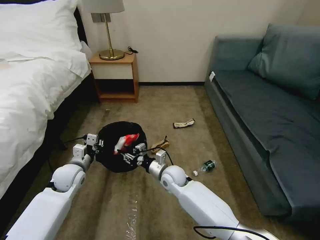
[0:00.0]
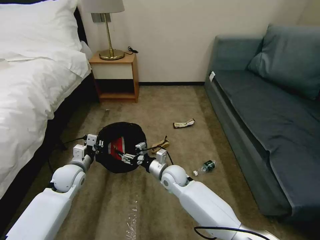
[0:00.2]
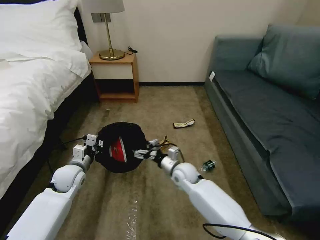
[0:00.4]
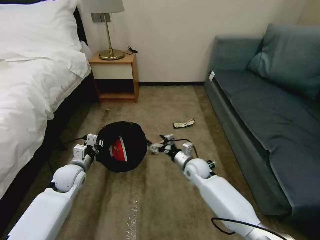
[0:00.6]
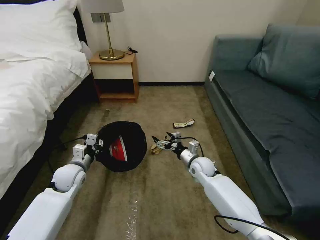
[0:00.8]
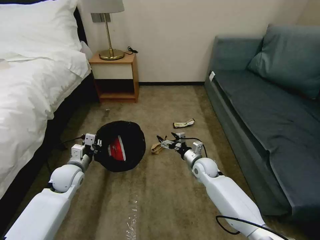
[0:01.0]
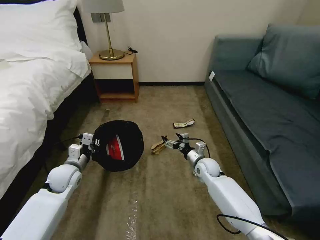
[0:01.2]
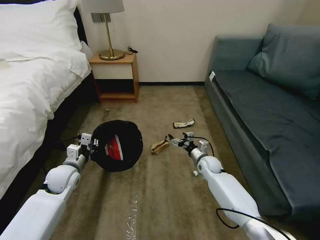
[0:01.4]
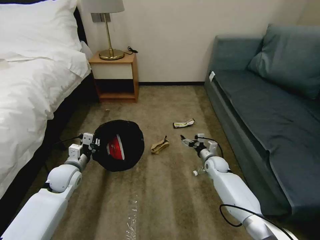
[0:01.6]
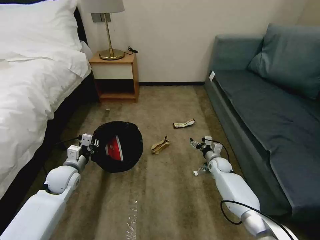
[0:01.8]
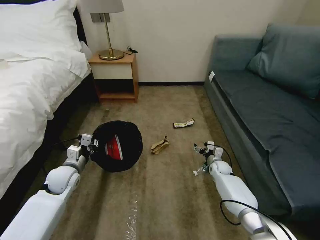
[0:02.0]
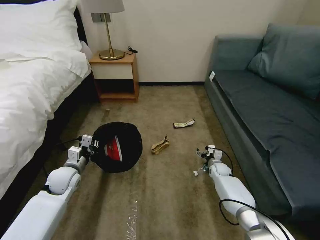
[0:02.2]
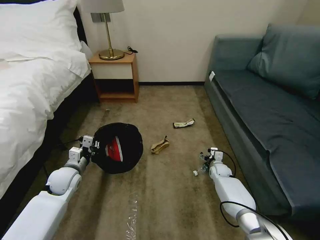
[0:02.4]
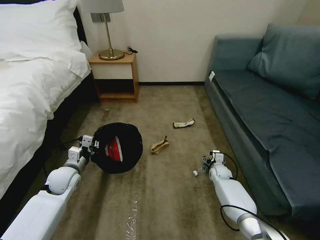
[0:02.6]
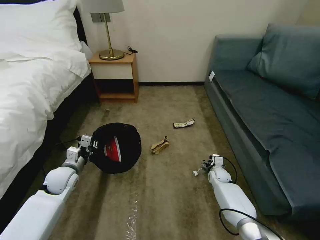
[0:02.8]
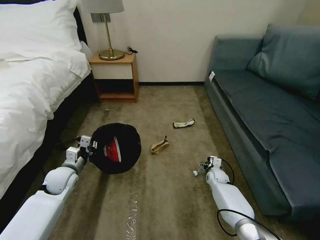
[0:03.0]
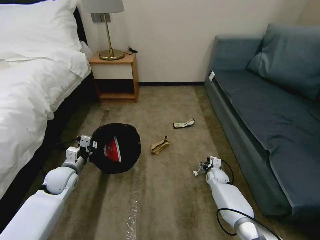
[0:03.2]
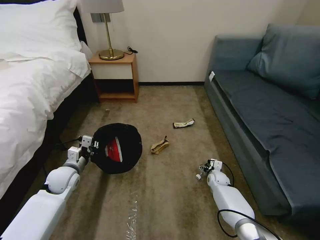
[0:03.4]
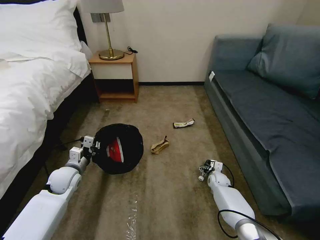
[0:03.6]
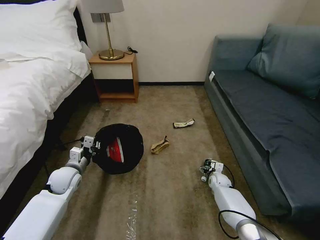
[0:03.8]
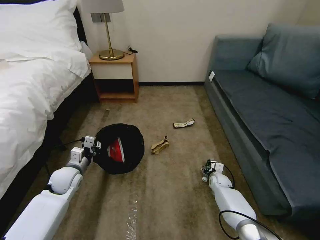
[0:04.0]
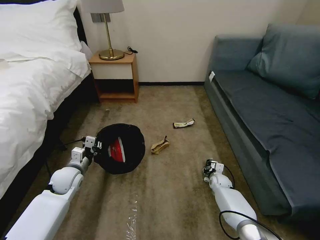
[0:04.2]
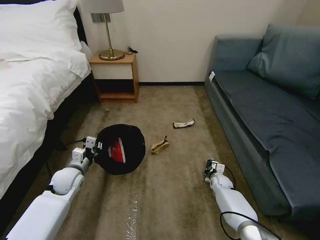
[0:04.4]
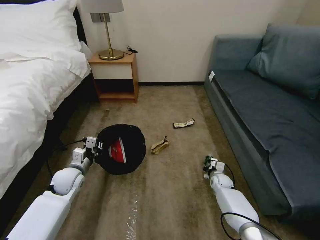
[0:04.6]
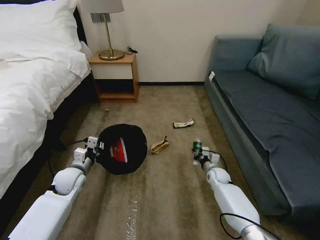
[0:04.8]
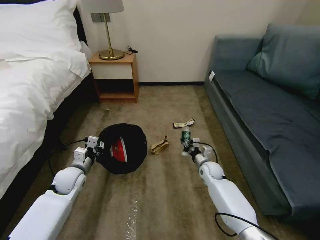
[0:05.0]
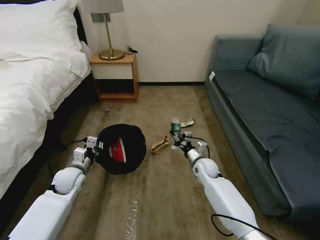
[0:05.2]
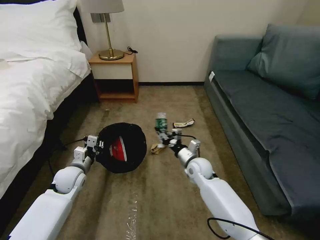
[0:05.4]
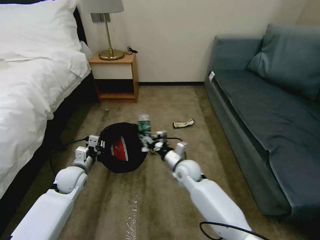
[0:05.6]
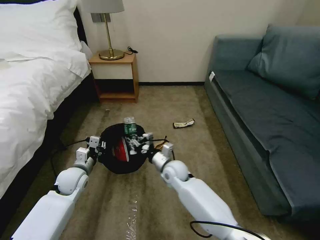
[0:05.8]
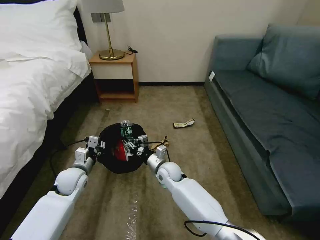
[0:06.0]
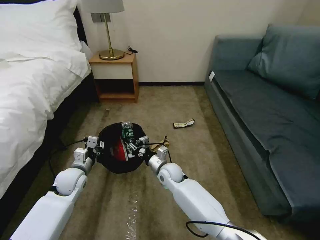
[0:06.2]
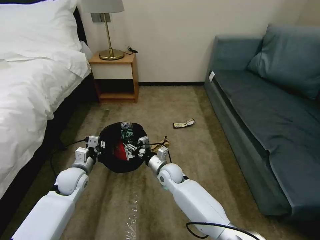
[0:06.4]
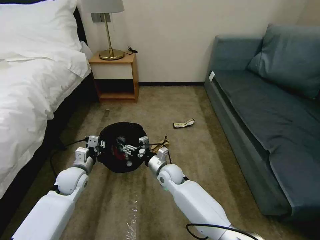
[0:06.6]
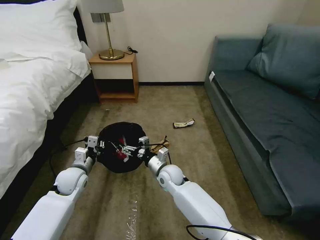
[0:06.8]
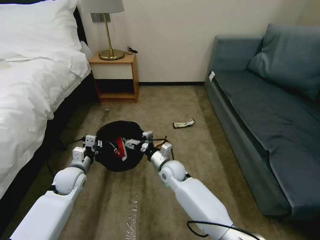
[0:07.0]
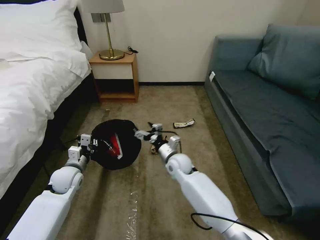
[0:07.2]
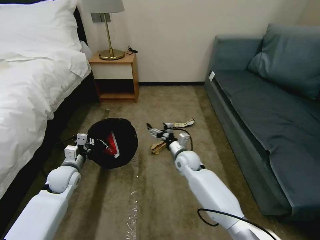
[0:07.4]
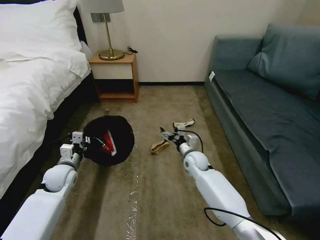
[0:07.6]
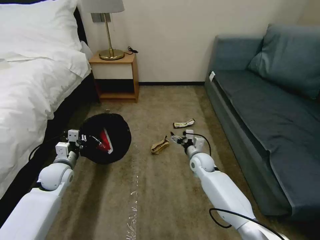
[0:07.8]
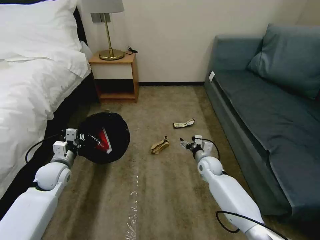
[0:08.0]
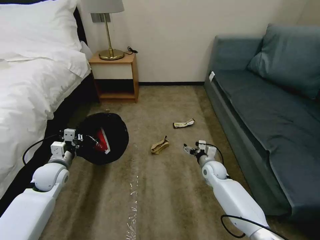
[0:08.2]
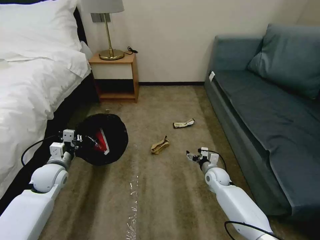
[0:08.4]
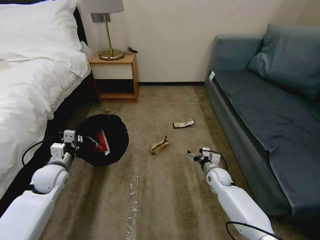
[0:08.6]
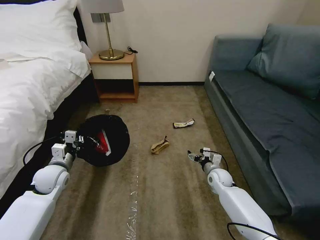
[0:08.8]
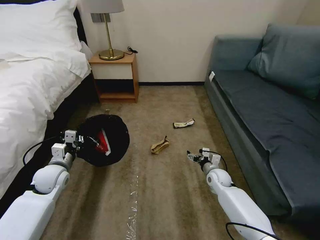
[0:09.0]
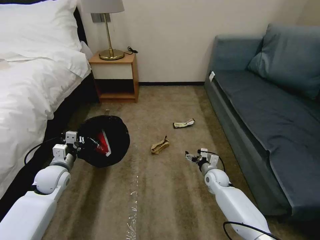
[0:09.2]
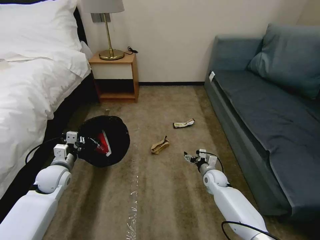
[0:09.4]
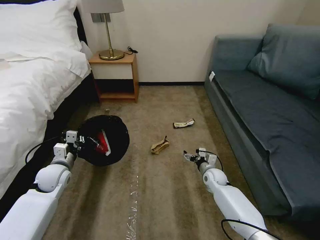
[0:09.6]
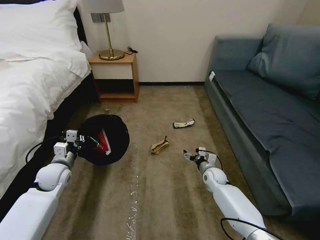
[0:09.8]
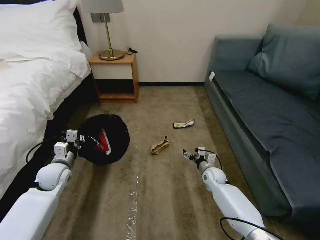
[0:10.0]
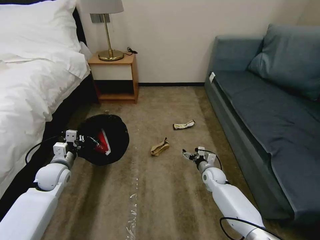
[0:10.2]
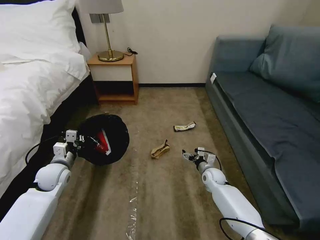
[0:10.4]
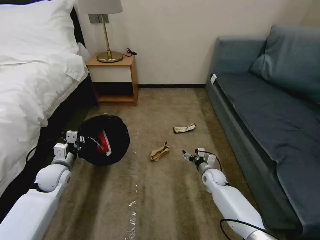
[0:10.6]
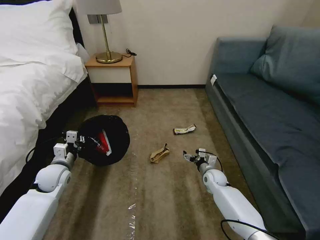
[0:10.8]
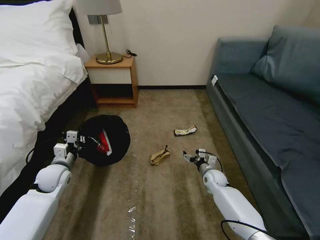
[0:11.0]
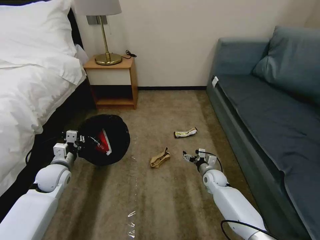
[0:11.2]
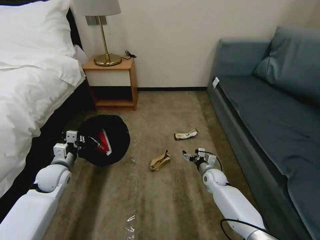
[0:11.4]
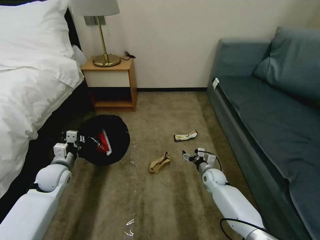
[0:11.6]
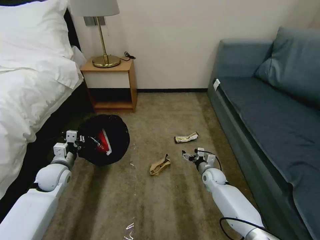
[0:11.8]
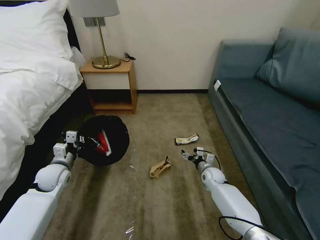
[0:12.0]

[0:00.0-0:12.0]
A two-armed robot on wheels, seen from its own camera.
Task of the whole recording: Pick up the trash bin, then pick up the garbage on the floor and place it into the trash bin.
0:00.0 to 0:01.6: The right gripper is displaced to the right by about 20 cm, and opens up.
0:01.6 to 0:03.0: The right gripper goes about 5 cm downward.
0:03.0 to 0:04.4: The right gripper closes.
0:04.4 to 0:06.0: The right gripper shifts some 30 cm to the left and upward.
0:06.0 to 0:07.6: The right gripper is displaced to the right by approximately 10 cm, and opens.
0:07.6 to 0:09.0: The right gripper travels to the right and downward by about 15 cm.
0:09.0 to 0:10.4: The grippers make only small movements.
0:10.4 to 0:12.0: Both grippers stay put.

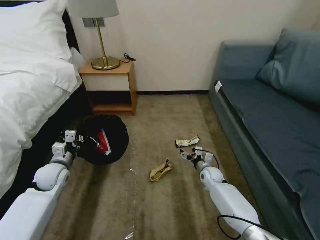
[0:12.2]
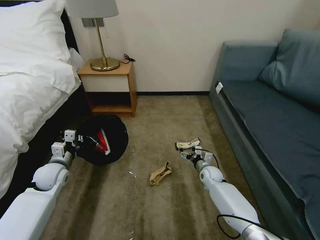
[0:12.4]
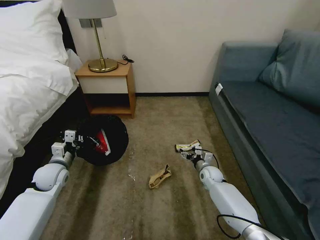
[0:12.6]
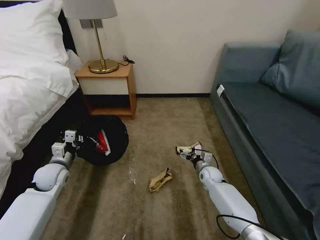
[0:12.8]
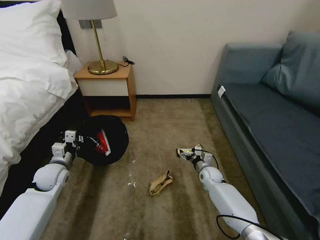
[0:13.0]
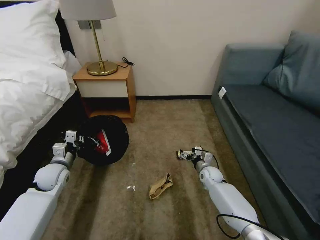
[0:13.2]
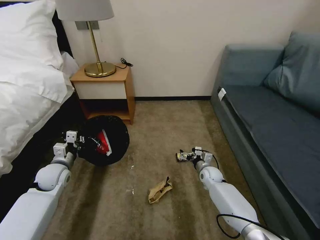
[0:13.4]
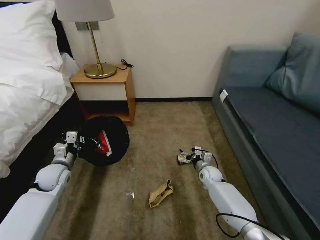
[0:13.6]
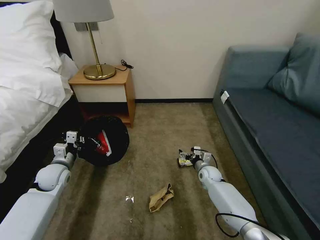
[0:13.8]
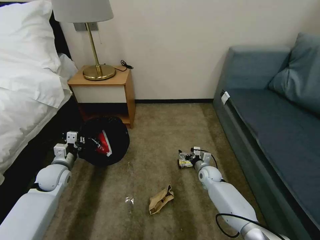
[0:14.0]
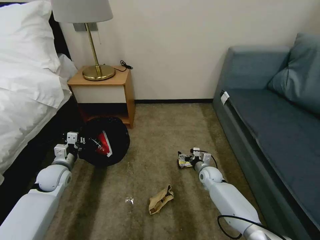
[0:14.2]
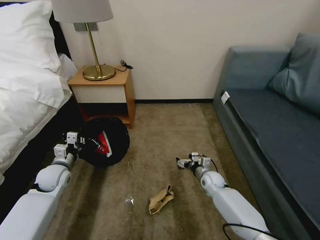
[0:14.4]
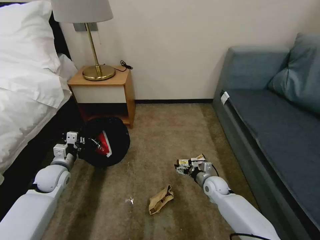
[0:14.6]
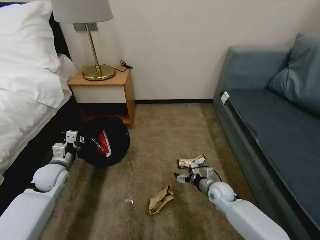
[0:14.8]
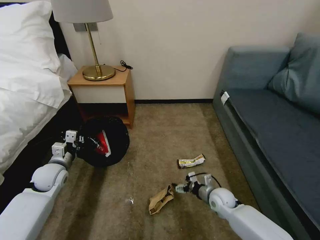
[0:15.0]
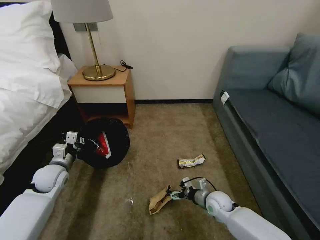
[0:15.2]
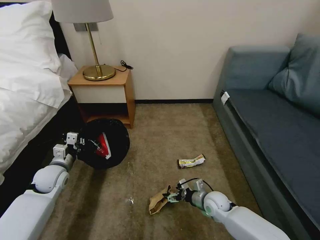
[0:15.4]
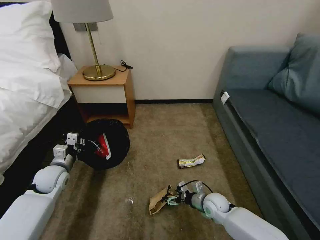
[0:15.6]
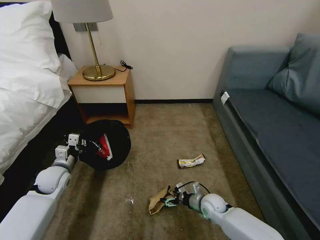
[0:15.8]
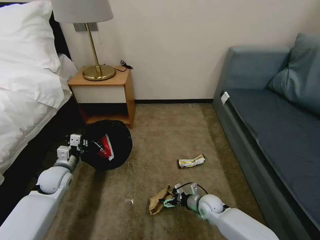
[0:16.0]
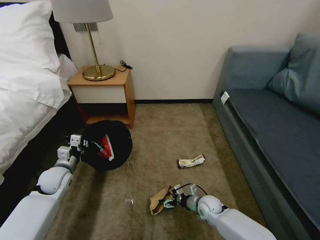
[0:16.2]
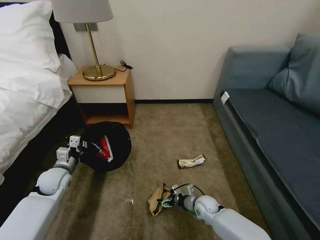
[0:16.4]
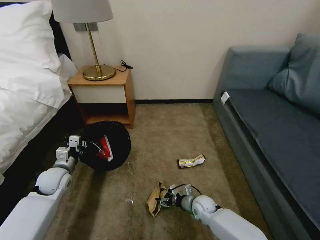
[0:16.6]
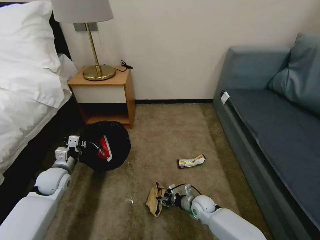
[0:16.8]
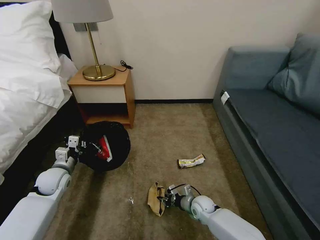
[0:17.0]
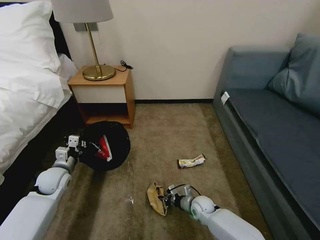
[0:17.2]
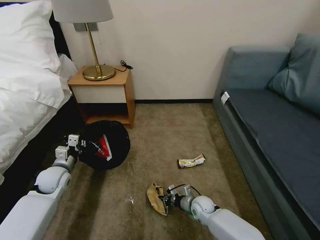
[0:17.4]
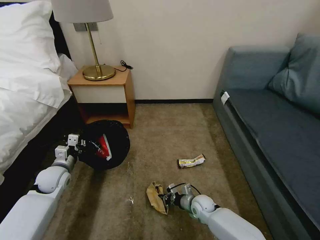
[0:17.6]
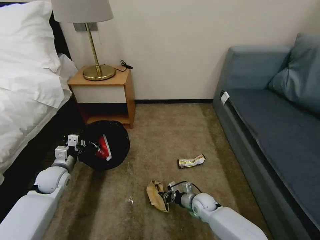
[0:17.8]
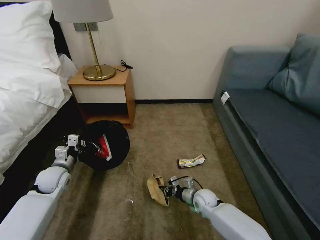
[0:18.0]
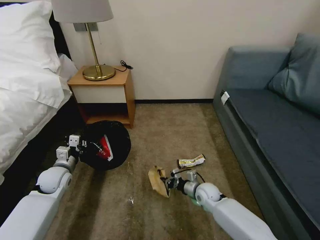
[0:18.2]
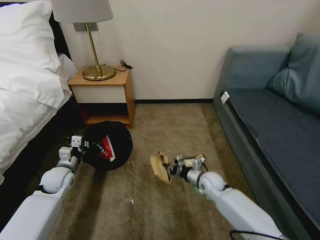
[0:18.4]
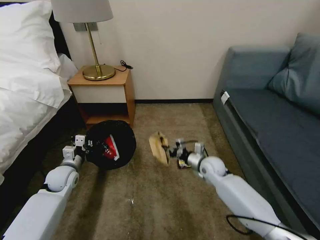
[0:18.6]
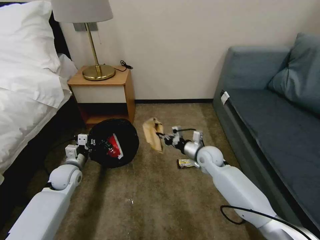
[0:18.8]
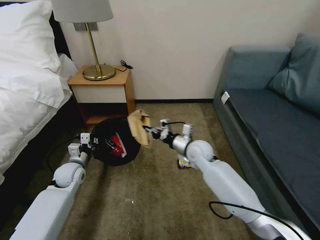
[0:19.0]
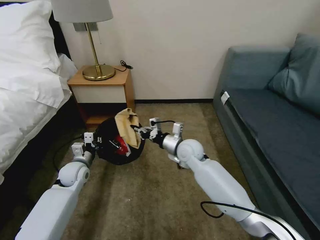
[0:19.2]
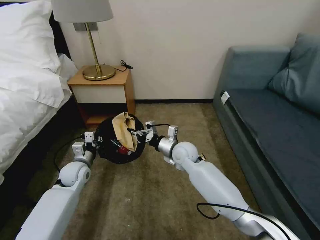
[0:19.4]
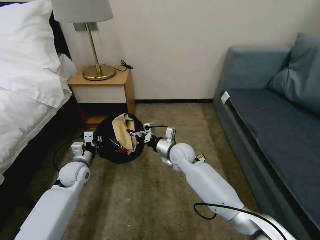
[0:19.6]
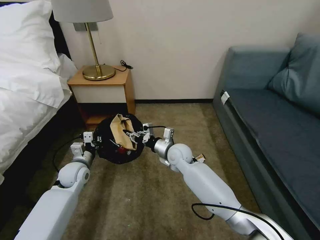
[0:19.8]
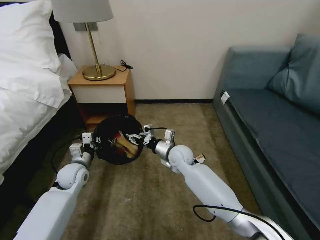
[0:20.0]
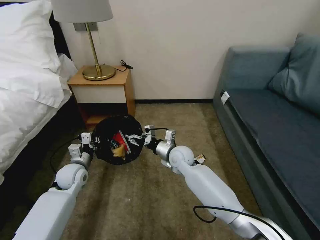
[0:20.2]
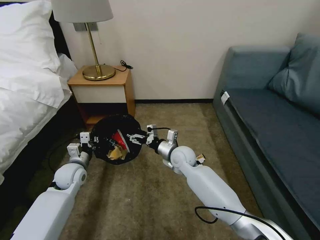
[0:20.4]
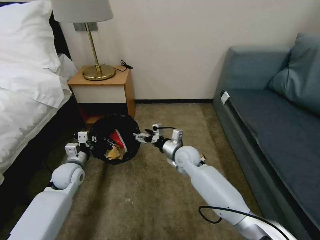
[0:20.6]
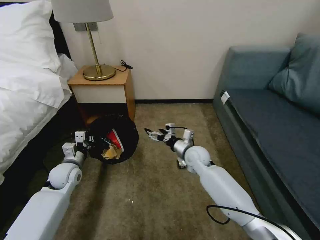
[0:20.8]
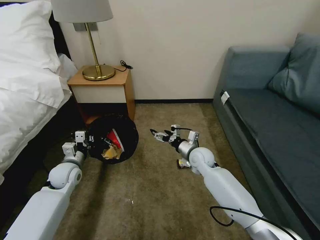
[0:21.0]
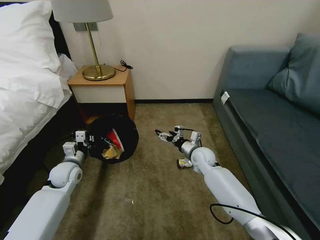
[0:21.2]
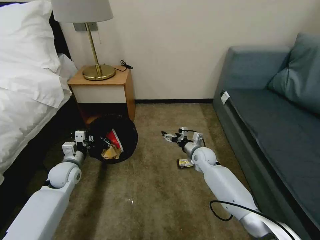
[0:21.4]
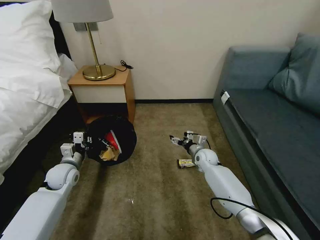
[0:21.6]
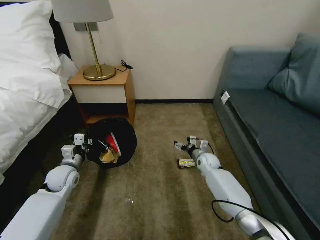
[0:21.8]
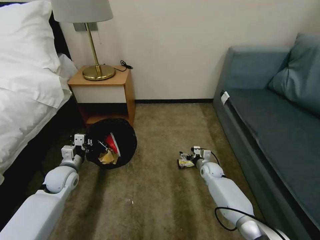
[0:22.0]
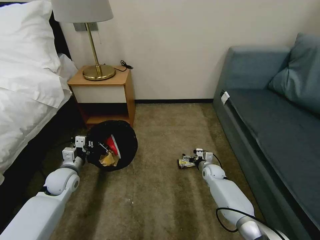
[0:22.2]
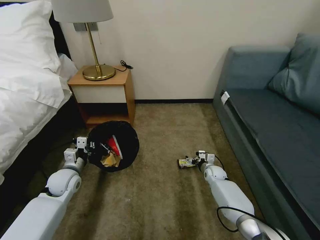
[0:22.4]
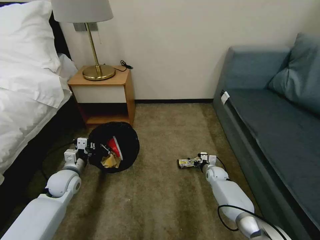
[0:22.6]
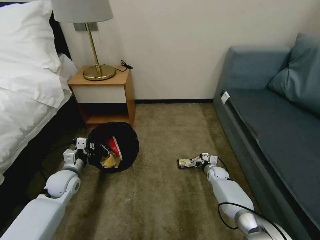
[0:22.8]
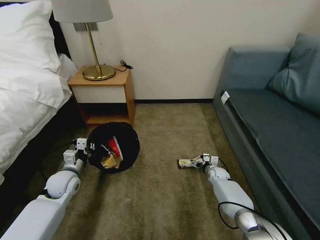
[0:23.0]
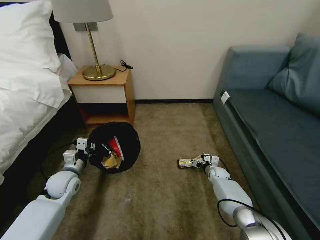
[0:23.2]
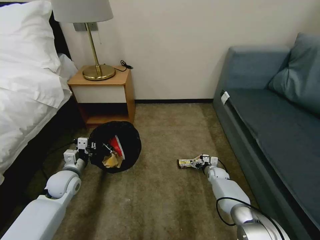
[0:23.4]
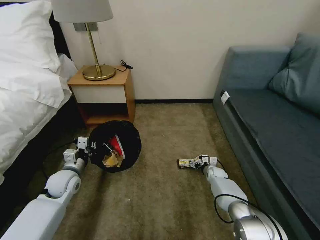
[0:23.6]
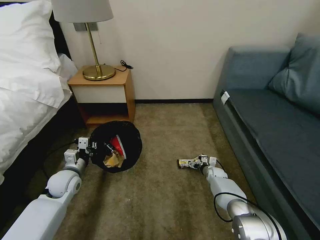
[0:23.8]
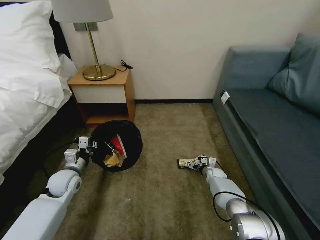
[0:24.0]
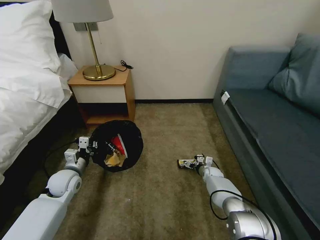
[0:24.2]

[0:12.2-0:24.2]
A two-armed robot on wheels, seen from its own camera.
Task of the whole recording: Pick up the trash bin, then pick up the garbage on the floor and place it into the trash bin.
0:12.2 to 0:13.8: The two grippers keep their place.
0:13.8 to 0:15.2: The right gripper moves backward, some 15 cm.
0:15.2 to 0:16.6: The right gripper shifts some 5 cm downward.
0:16.6 to 0:18.2: The right gripper moves some 5 cm, and closes up.
0:18.2 to 0:19.8: The right gripper moves upward, to the left and forward, roughly 20 cm; the left gripper shifts about 5 cm to the right.
0:19.8 to 0:21.2: The right gripper heads to the right, covering approximately 10 cm, and opens up.
0:21.2 to 0:22.6: The right gripper heads downward and to the right, covering approximately 20 cm.
0:22.6 to 0:24.2: The grippers move only a little.
